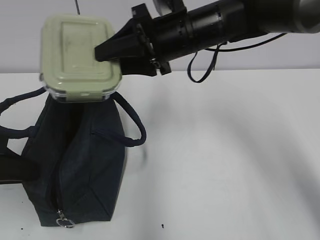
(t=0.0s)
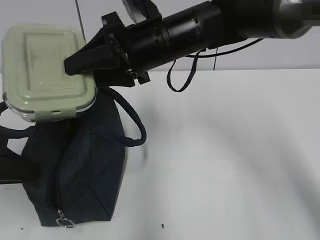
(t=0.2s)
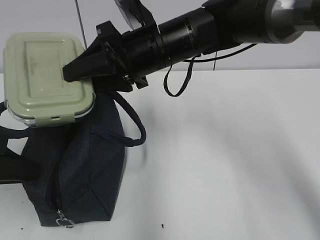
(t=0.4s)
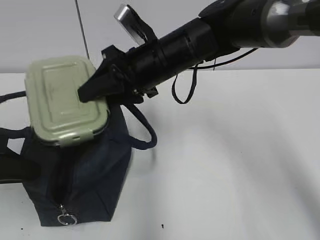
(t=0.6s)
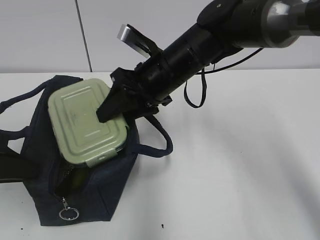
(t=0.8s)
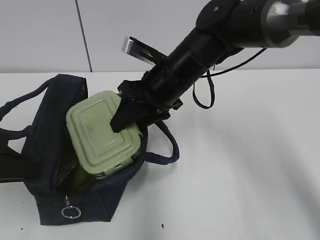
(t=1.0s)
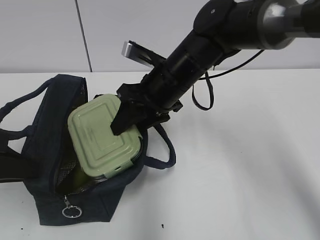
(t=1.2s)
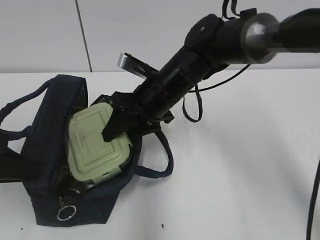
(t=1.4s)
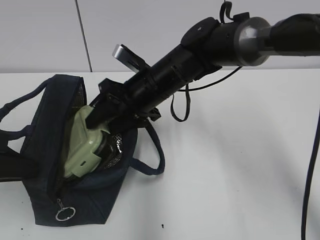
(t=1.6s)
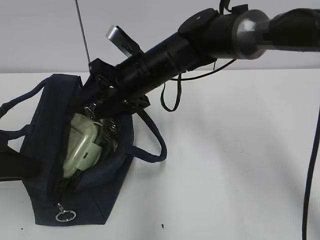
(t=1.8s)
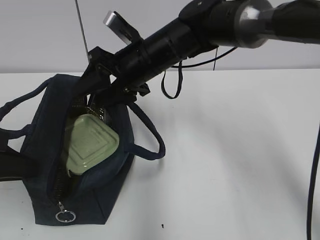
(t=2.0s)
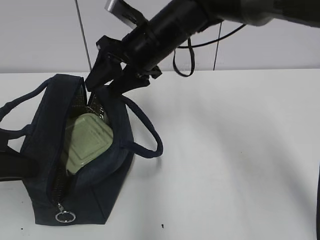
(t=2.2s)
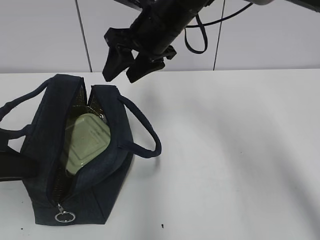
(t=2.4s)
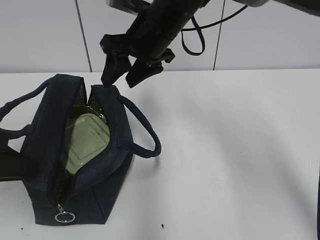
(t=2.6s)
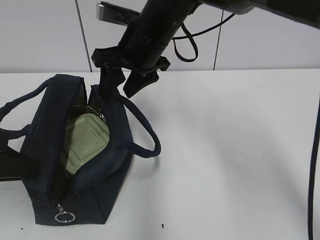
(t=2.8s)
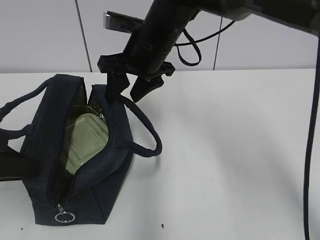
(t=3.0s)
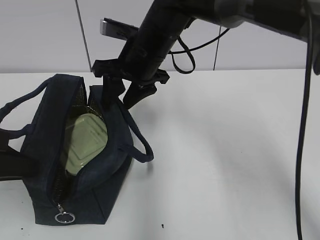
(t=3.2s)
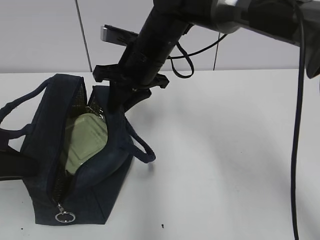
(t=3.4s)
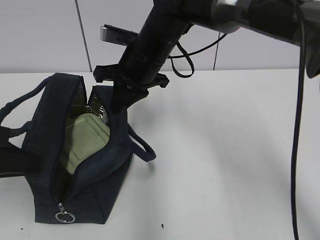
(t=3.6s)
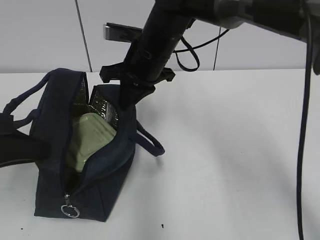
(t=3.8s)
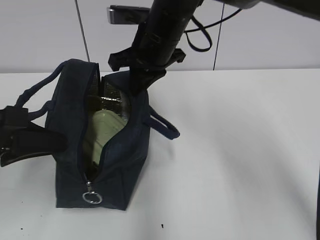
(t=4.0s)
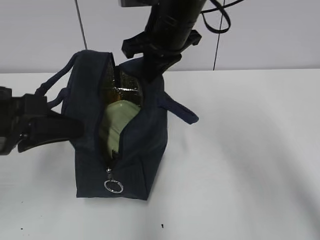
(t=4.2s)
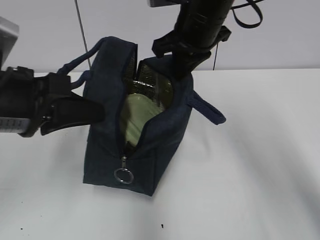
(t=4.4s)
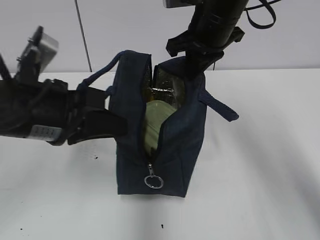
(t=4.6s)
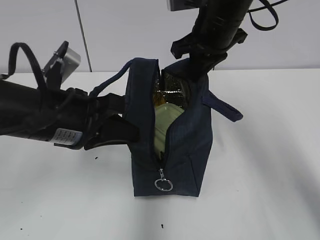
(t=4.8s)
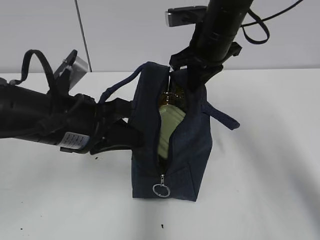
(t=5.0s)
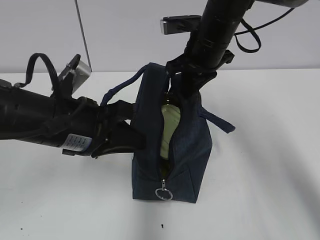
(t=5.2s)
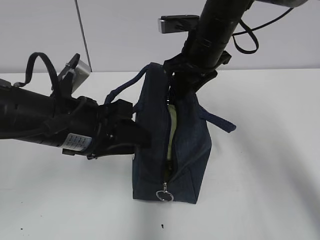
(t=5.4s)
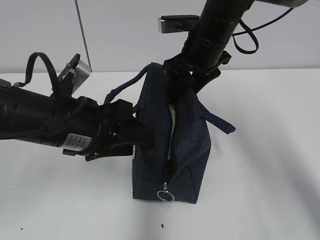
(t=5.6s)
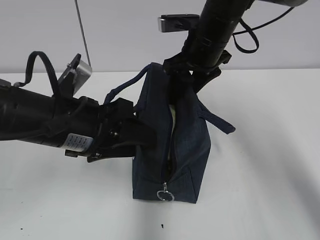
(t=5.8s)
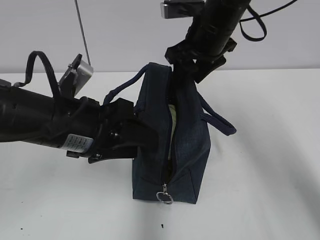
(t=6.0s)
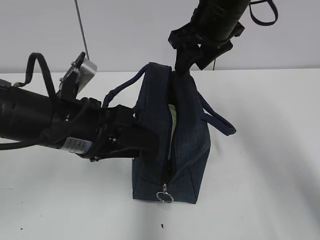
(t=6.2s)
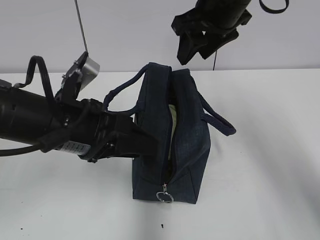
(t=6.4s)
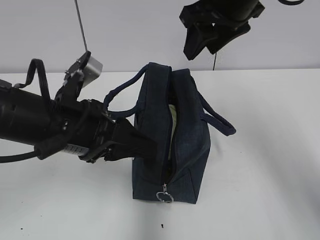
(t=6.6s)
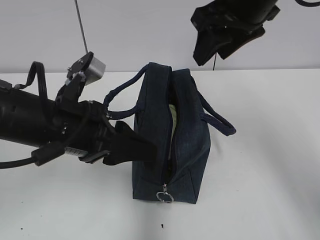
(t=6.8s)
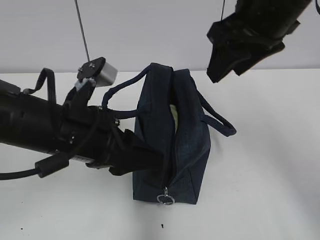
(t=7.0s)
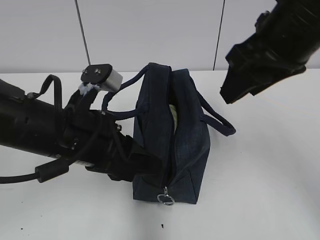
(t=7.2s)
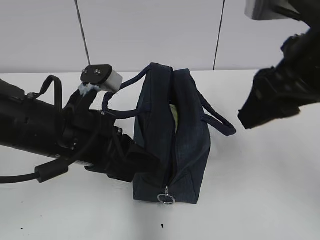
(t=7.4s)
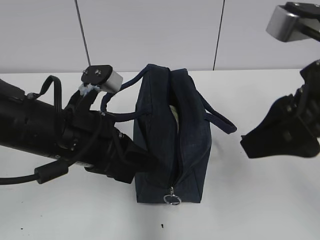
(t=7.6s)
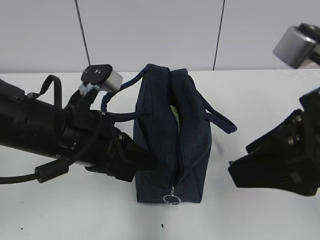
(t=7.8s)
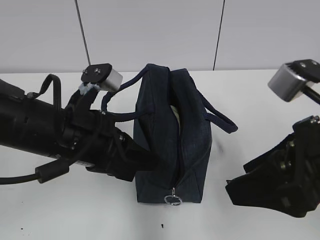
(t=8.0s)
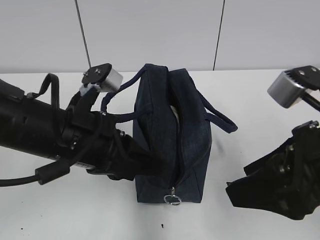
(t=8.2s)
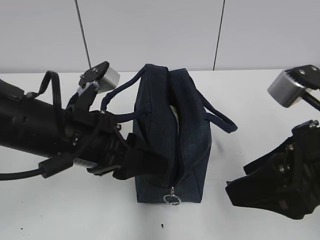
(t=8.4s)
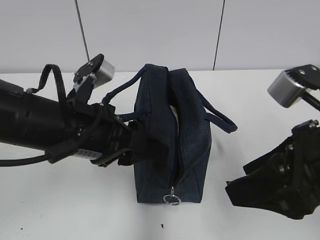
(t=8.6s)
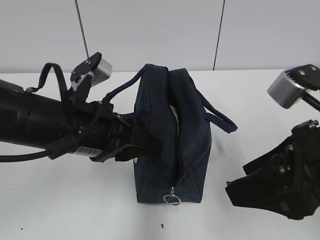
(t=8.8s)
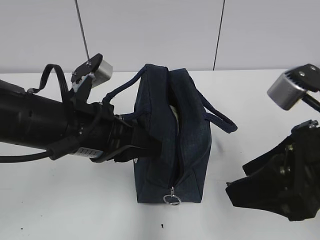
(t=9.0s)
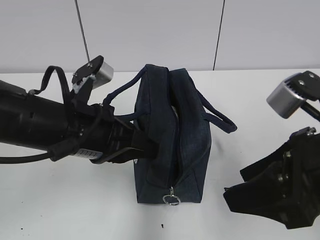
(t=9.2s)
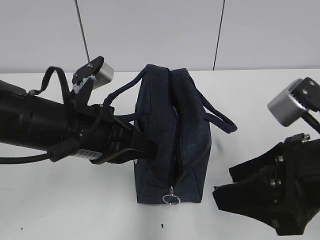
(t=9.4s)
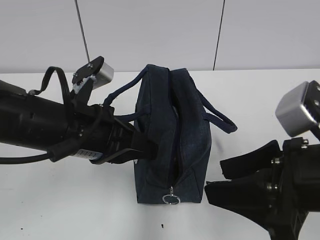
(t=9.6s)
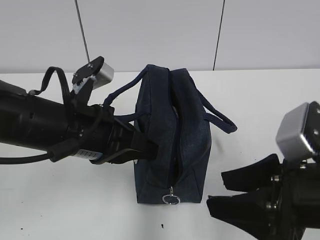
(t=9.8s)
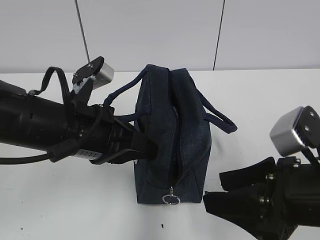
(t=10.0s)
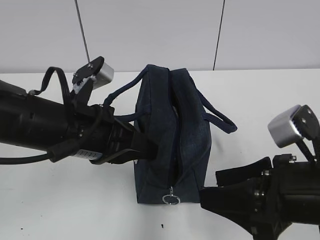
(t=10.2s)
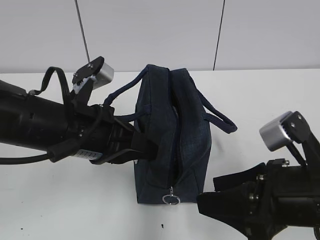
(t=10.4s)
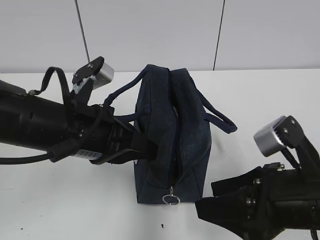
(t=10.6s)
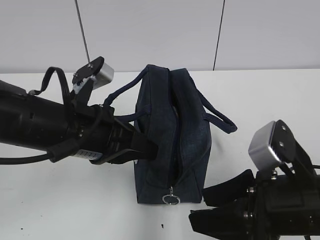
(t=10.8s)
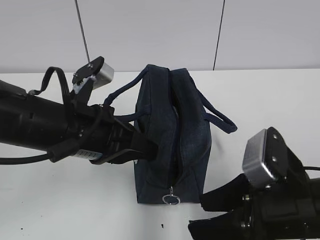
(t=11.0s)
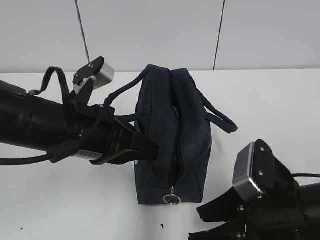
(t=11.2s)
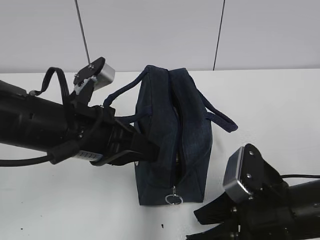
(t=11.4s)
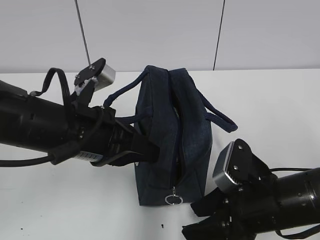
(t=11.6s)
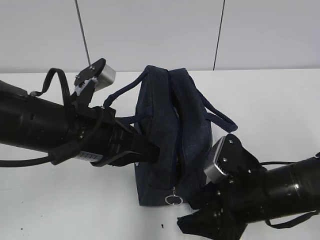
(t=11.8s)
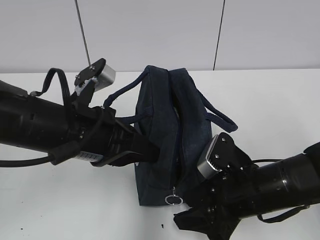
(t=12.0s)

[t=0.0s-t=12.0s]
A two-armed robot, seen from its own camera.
Step, t=2.0s to t=3.6s: Grab the lunch bag with your right hand.
Step, t=3.8s to t=5.8s: Move the lunch bag to the right.
t=0.0s to t=1.6s: The right gripper moves downward, roughly 10 cm.
t=1.6s to t=3.0s: The right gripper travels upward by some 5 cm.
t=3.0s to t=4.4s: Both grippers move to the right, some 10 cm. The right gripper closes its fingers.
t=4.4s to t=6.0s: The right gripper opens; the left gripper shifts by approximately 5 cm, and opens up.
t=6.0s to t=7.6s: The left gripper closes, while the right gripper moves backward, roughly 20 cm.
t=7.6s to t=9.0s: The left gripper opens, then closes again; the right gripper shifts roughly 5 cm downward.
t=9.0s to t=10.4s: The right gripper heads downward, covering roughly 5 cm; the left gripper closes.
t=10.4s to t=12.0s: The right gripper moves downward and forward, approximately 10 cm.

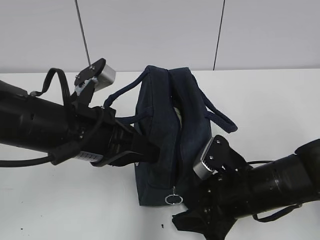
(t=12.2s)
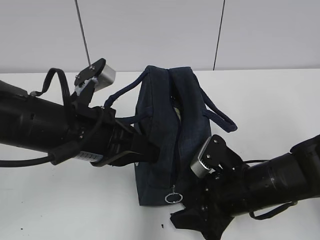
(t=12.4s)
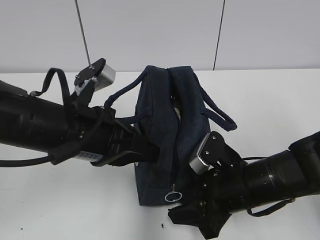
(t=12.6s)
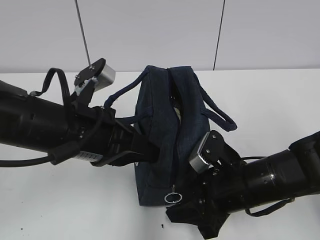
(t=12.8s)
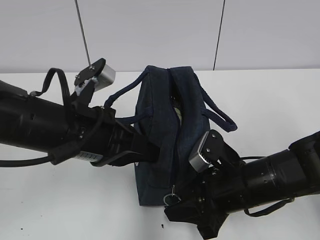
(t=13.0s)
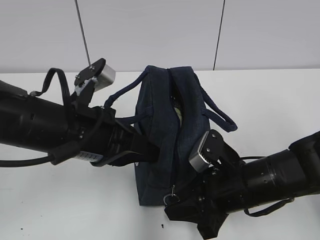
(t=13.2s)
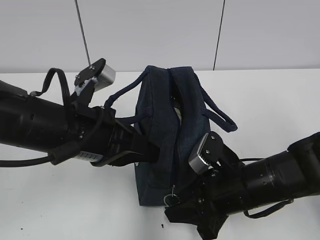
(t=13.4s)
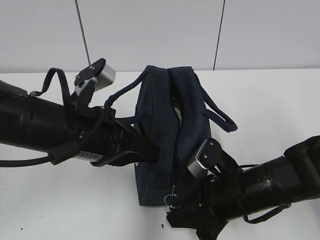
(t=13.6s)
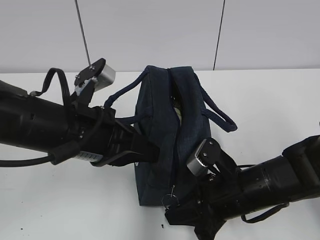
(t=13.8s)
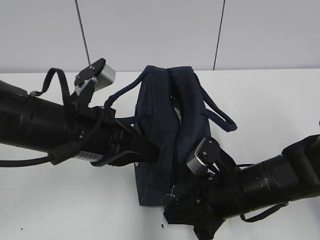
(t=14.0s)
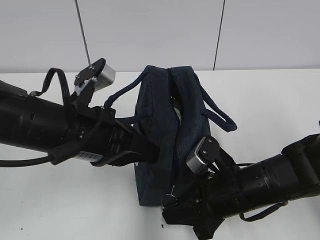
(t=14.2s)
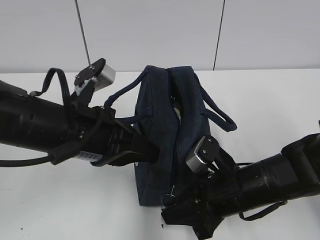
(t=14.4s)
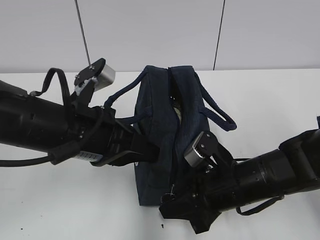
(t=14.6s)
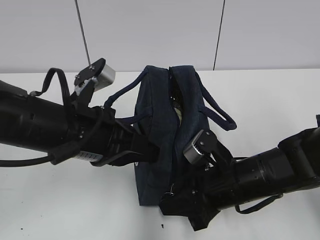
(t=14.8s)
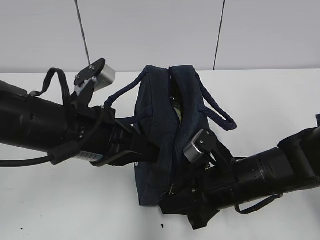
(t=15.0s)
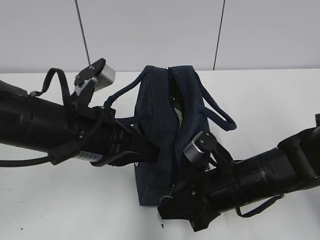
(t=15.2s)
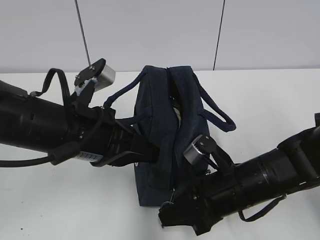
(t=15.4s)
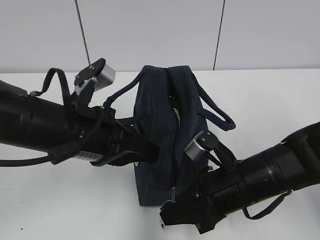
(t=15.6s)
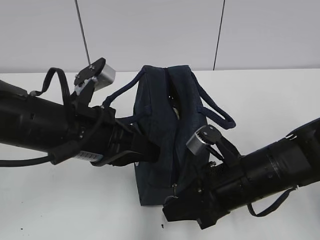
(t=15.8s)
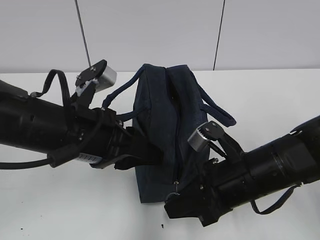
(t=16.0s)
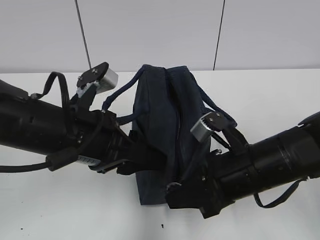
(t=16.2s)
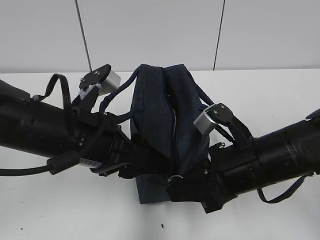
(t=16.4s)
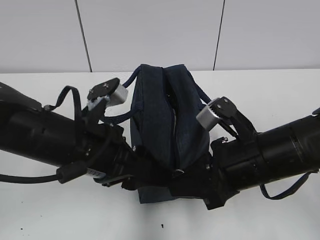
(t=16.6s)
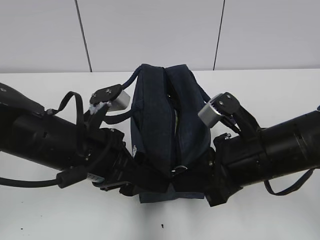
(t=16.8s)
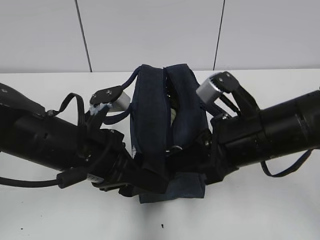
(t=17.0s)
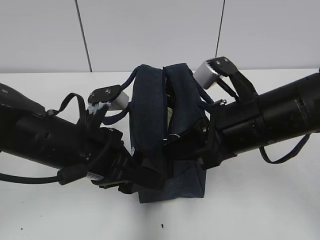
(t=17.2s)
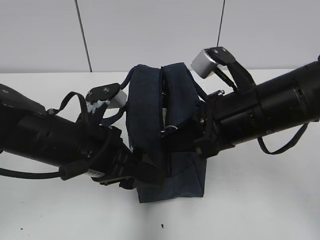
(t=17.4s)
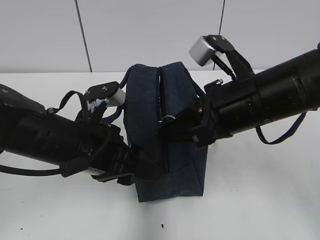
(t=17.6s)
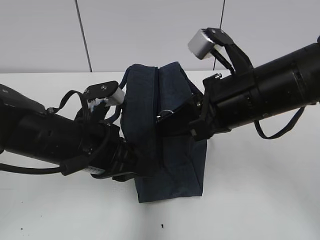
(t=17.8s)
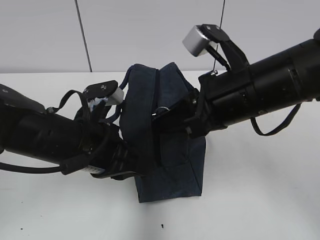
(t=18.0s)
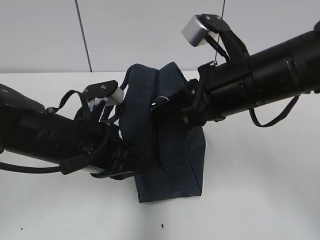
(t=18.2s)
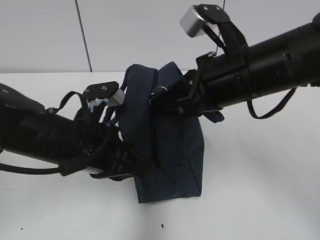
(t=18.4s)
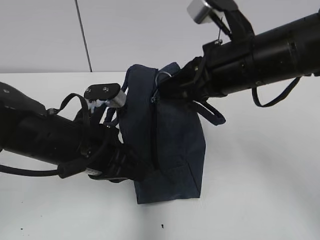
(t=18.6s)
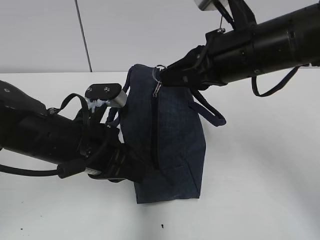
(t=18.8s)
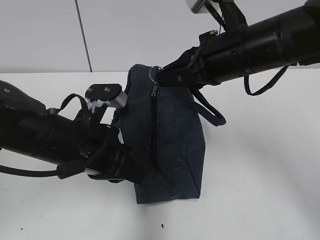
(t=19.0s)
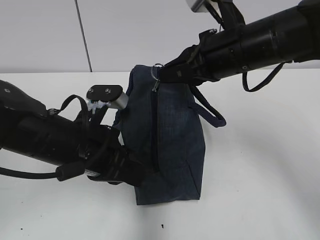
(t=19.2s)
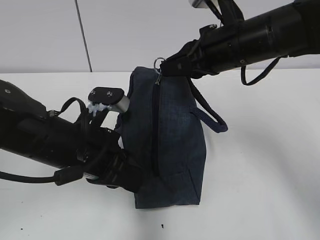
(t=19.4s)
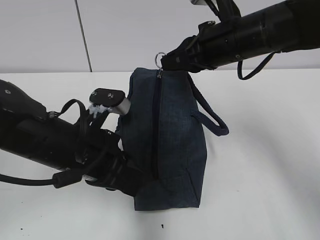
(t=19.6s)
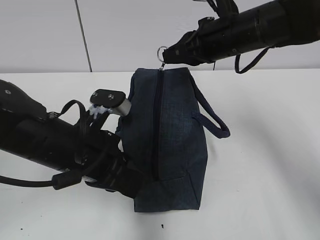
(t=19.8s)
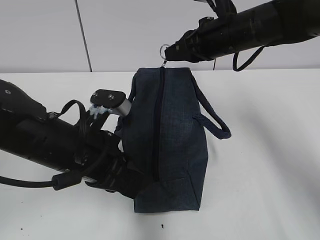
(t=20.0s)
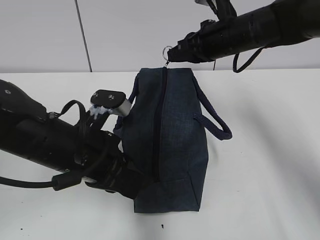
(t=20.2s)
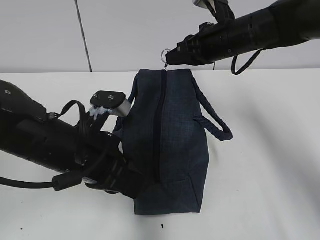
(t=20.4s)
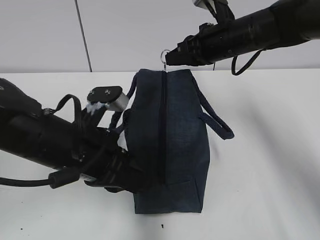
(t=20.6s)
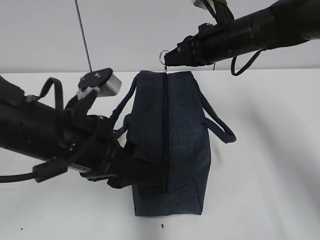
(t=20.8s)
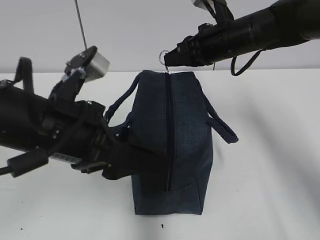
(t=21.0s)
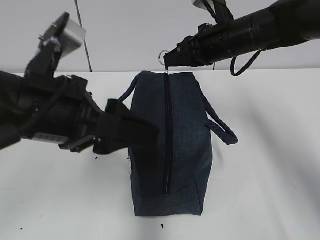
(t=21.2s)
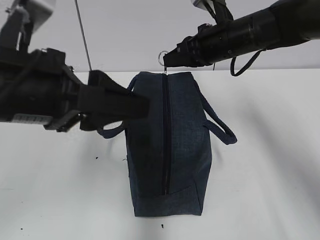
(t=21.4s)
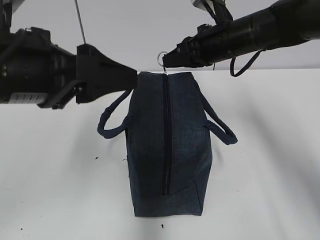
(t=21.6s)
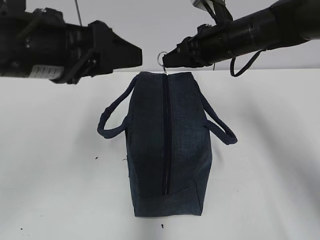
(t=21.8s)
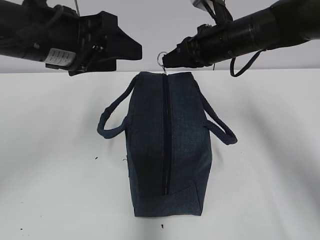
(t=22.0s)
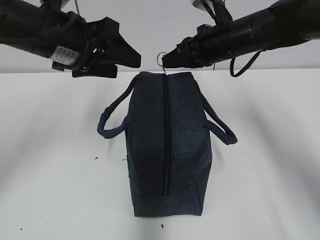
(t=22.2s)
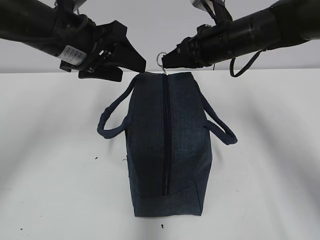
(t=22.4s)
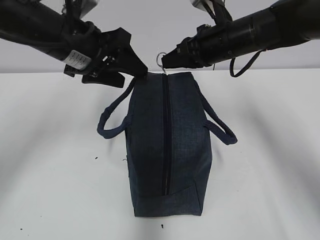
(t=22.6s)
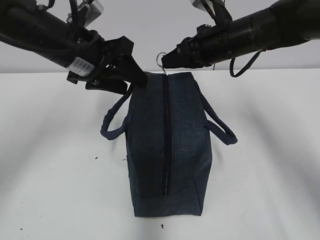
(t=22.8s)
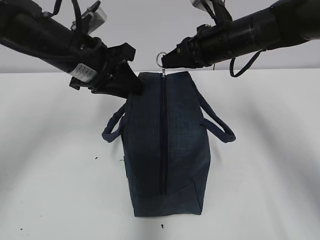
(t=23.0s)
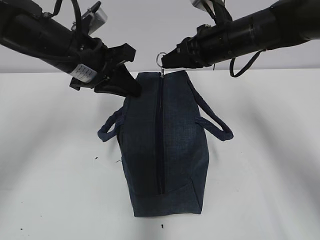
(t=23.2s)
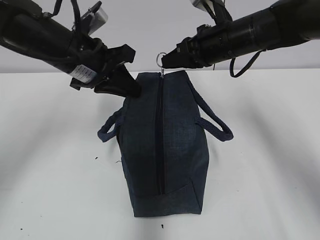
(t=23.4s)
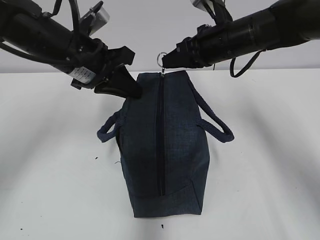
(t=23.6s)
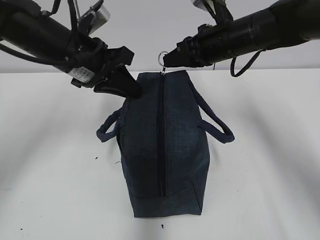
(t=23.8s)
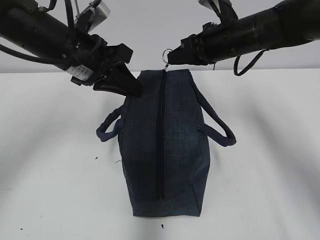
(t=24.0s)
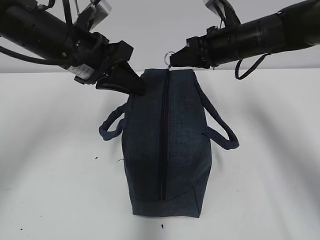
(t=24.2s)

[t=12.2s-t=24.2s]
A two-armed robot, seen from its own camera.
t=12.2s to t=13.8s: The right gripper closes.
t=13.8s to t=15.2s: The grippers make only small movements.
t=15.2s to t=16.6s: The right gripper goes some 10 cm upward; the left gripper opens.
t=16.6s to t=18.2s: The right gripper goes some 10 cm upward, while the left gripper closes up.
t=18.2s to t=19.8s: The right gripper moves forward, some 10 cm.
t=19.8s to t=21.2s: The left gripper travels upward by roughly 10 cm, and opens.
t=21.2s to t=22.6s: The left gripper heads forward, covering some 15 cm.
t=22.6s to t=24.2s: The left gripper closes its fingers.
